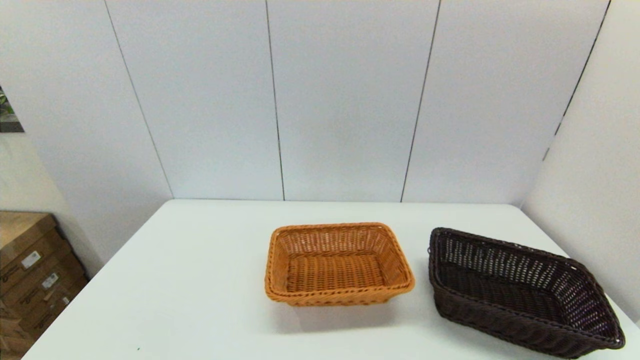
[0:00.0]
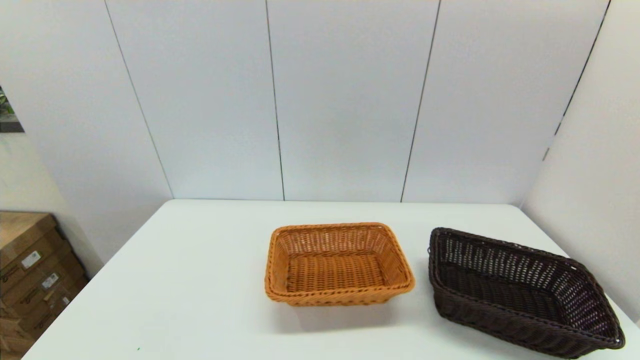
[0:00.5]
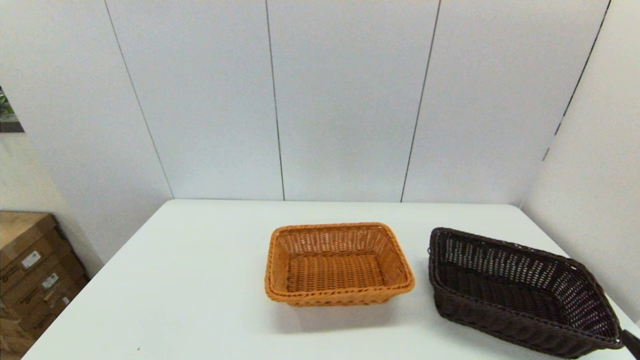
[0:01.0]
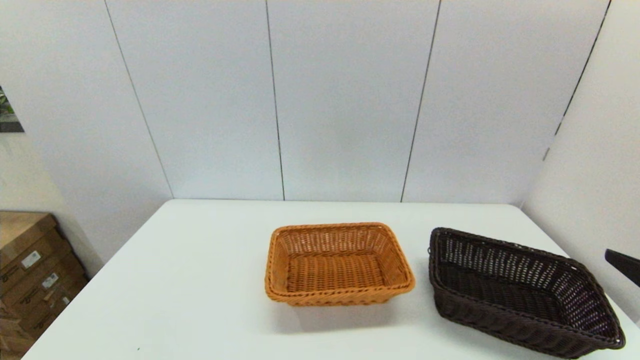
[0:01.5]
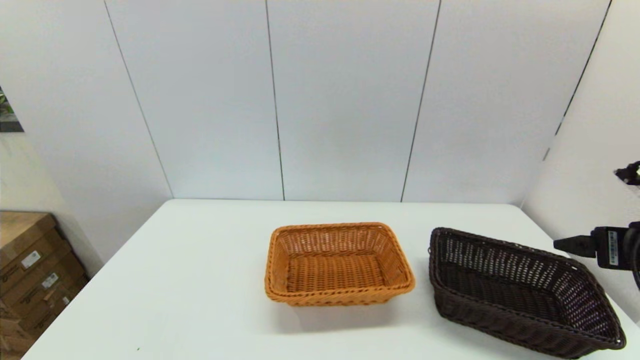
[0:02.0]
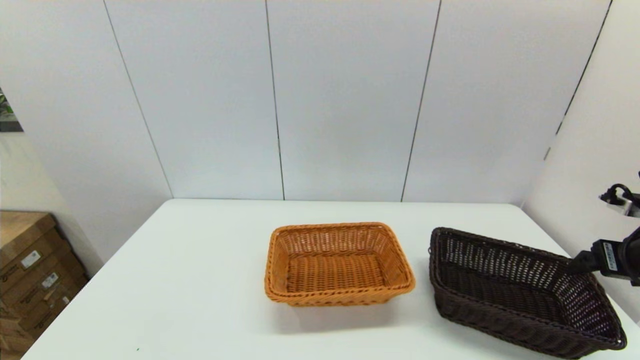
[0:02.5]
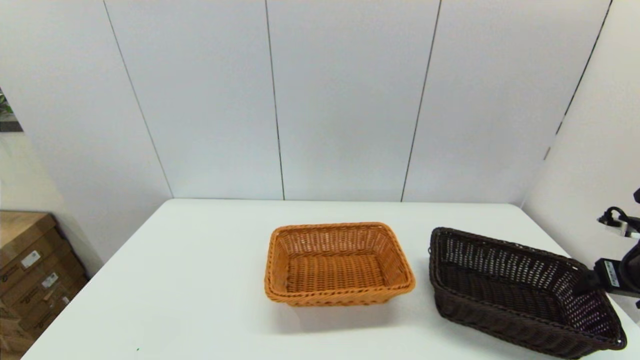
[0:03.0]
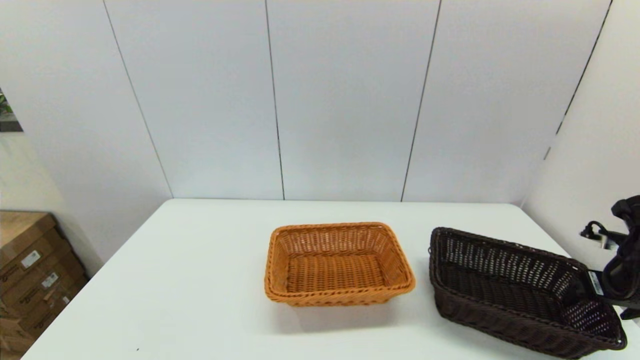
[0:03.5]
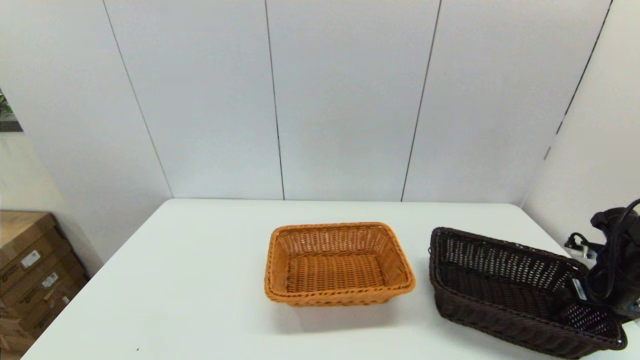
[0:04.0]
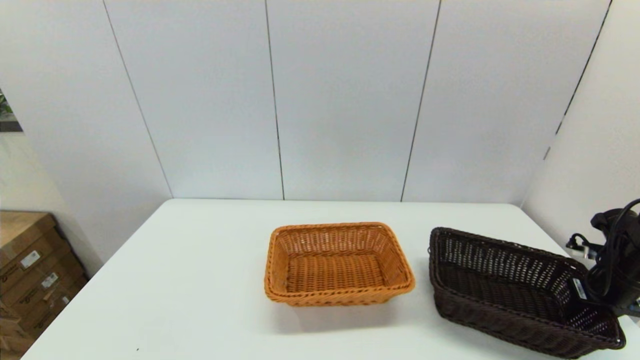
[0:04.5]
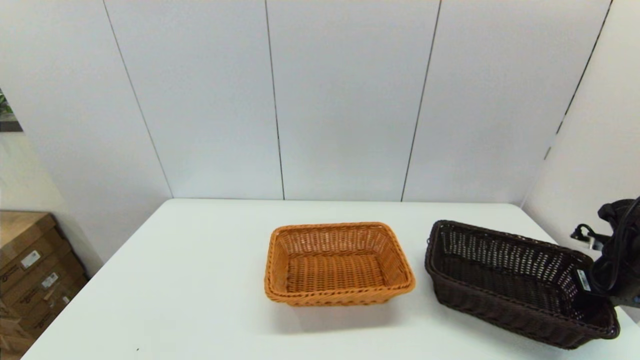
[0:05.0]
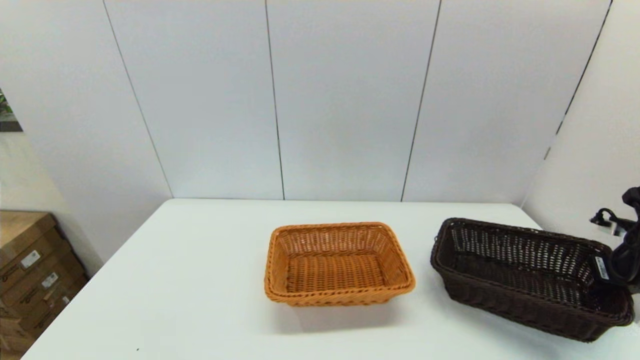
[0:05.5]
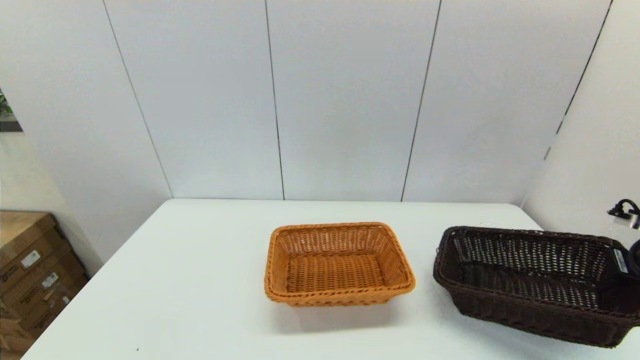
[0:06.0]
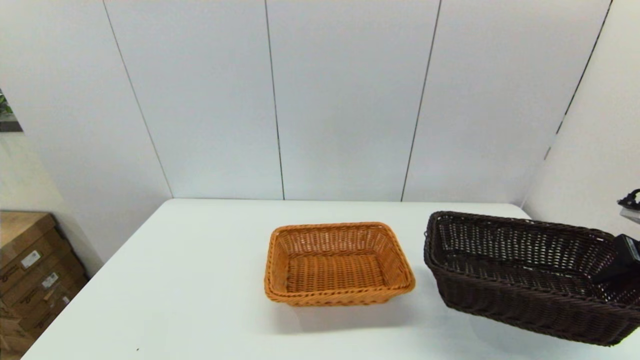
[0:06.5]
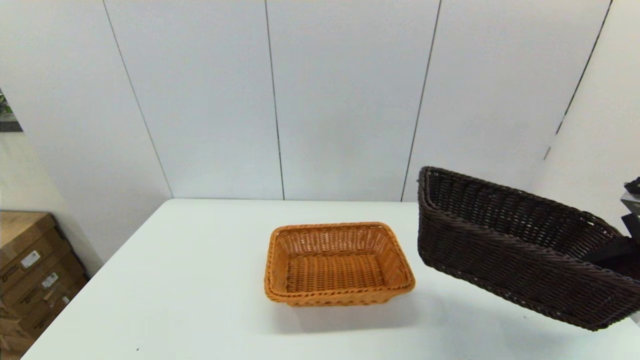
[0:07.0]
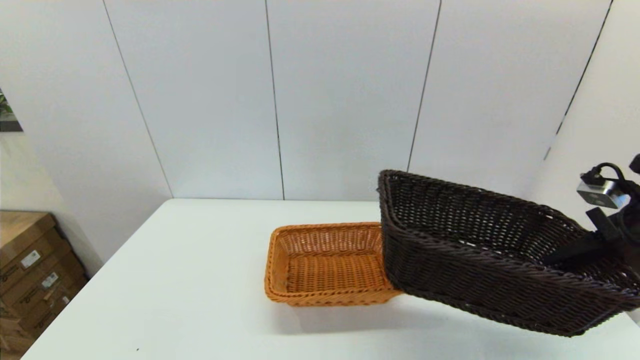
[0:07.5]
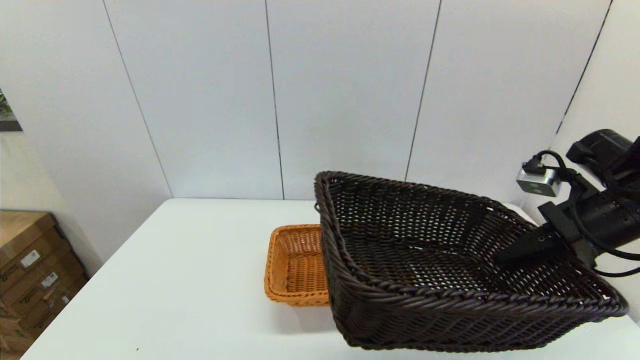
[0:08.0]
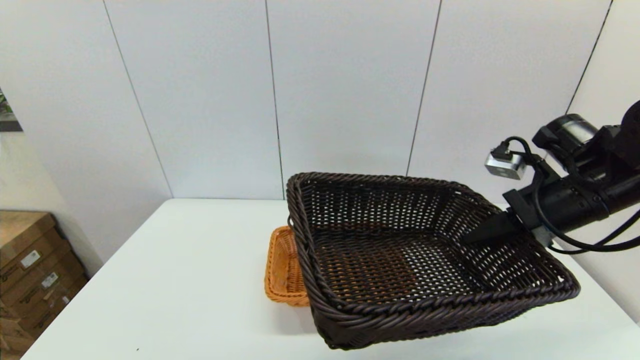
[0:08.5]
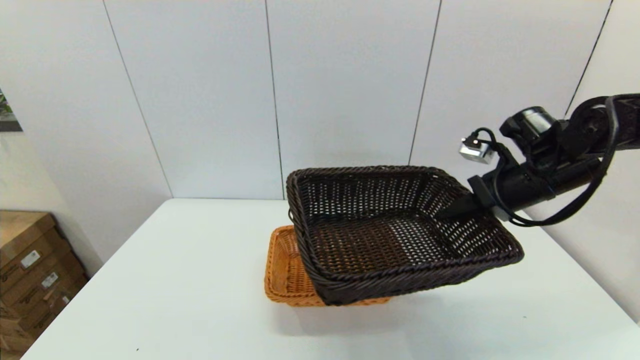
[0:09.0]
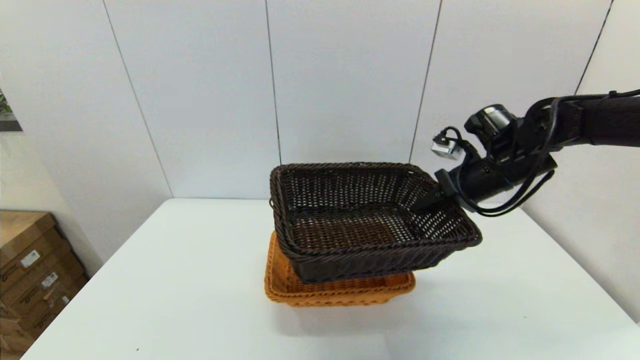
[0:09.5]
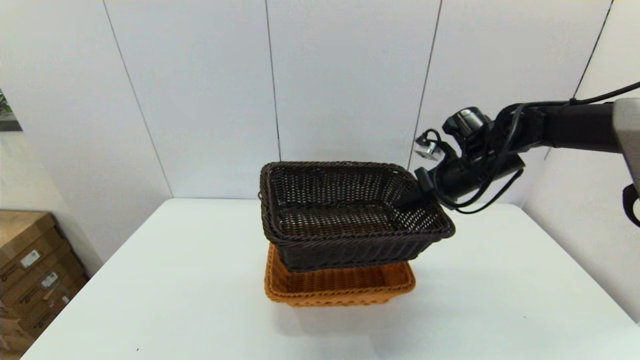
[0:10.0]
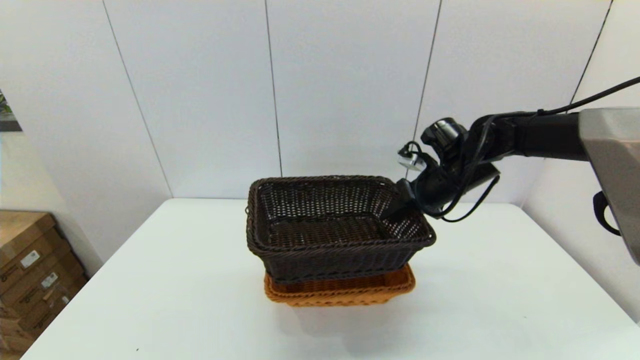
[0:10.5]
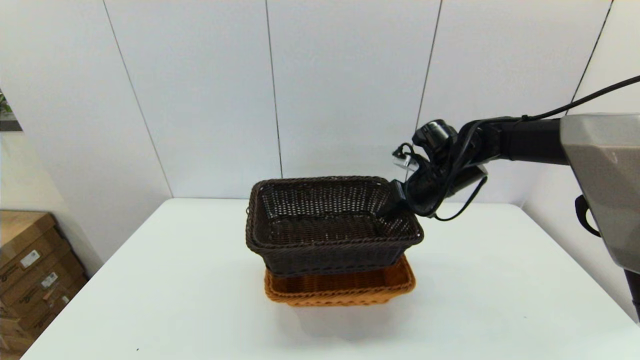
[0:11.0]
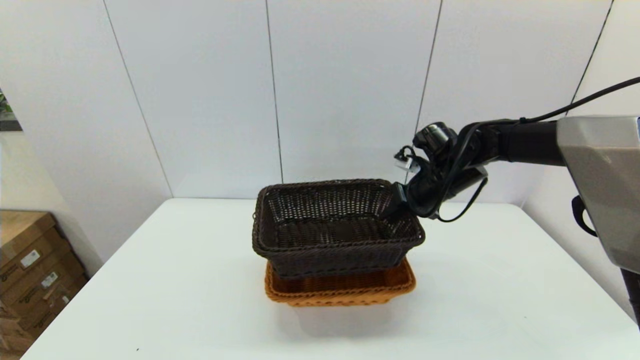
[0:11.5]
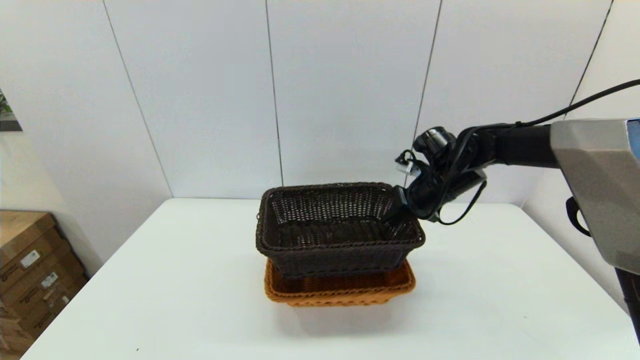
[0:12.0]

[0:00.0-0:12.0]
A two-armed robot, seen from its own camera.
Task of the whole recording: stack a basket on top of another basket.
Step, 0:00.0 to 0:04.5: Grasp the dark basket with the right gripper.
0:00.0 to 0:02.0: The right gripper travels forward and upward by roughly 25 cm.
0:02.0 to 0:04.0: The right gripper goes about 20 cm downward, to the right and forward.
0:04.0 to 0:06.0: The right gripper moves upward, approximately 10 cm, and closes its fingers.
0:06.0 to 0:08.0: The right gripper heads to the left and upward, covering some 15 cm.
0:08.0 to 0:10.0: The right gripper moves forward and to the left, about 15 cm.
0:10.0 to 0:12.0: The right gripper ends up some 5 cm from where it was.

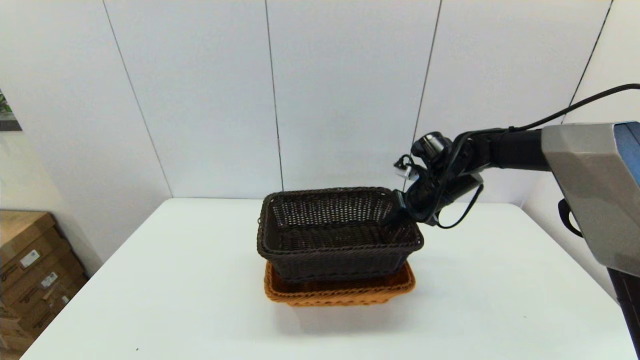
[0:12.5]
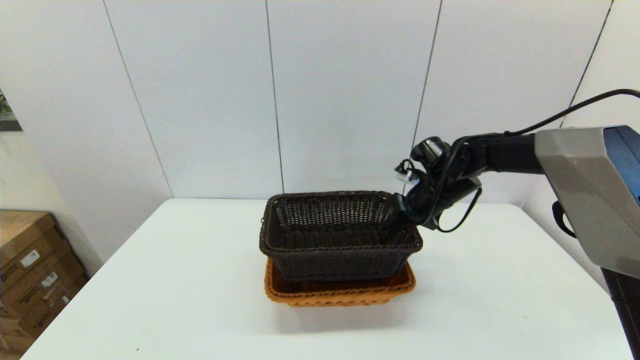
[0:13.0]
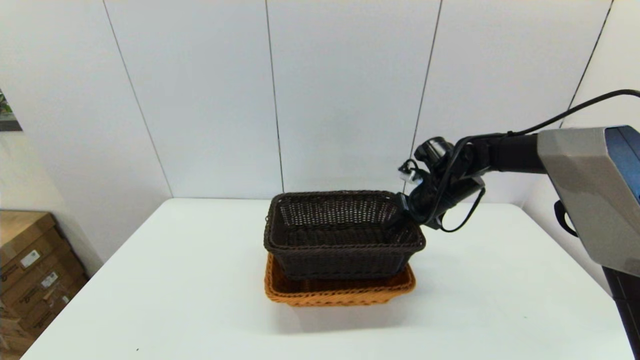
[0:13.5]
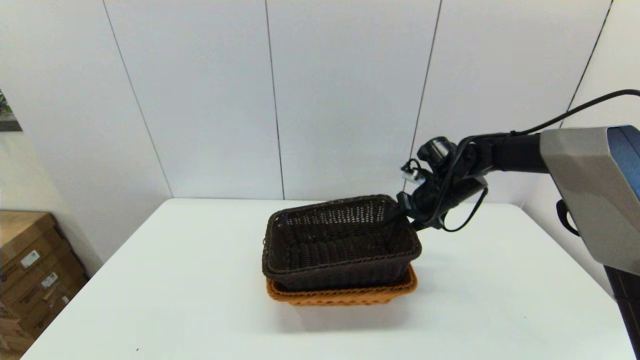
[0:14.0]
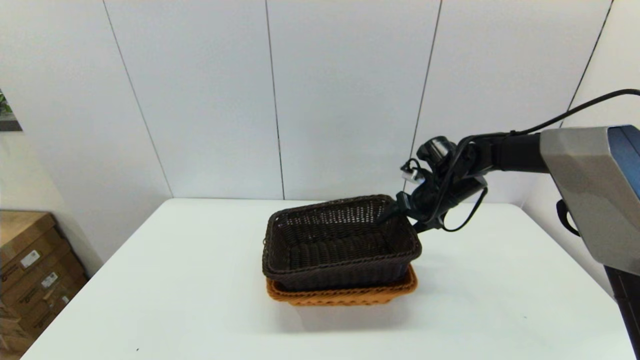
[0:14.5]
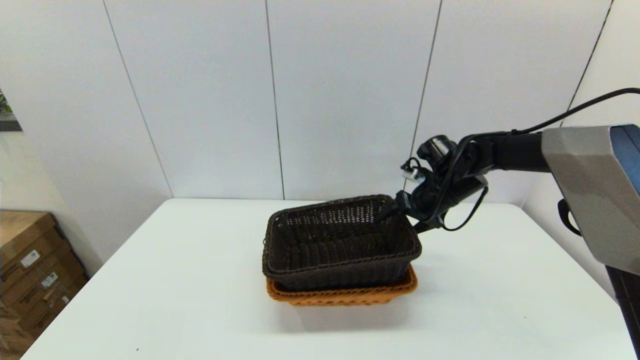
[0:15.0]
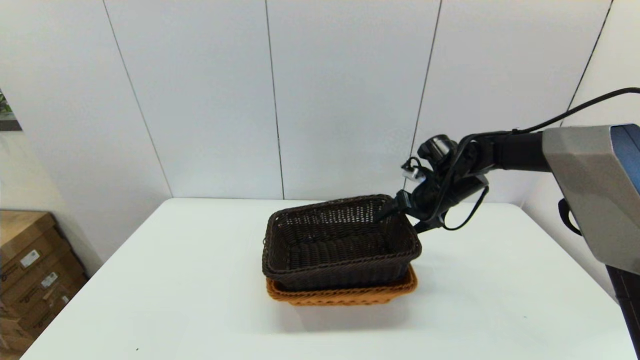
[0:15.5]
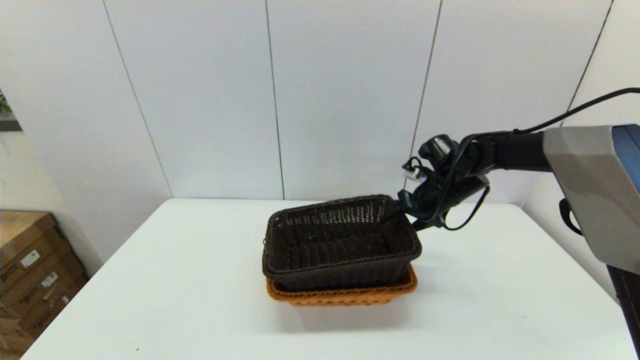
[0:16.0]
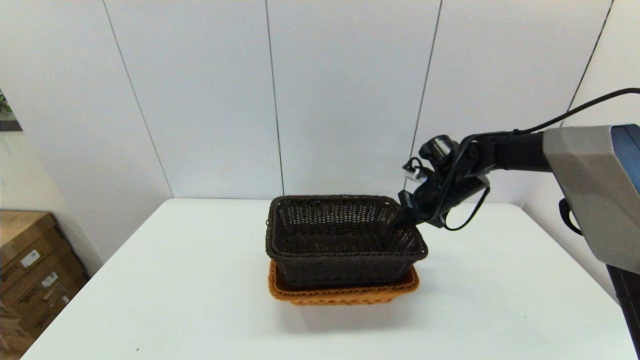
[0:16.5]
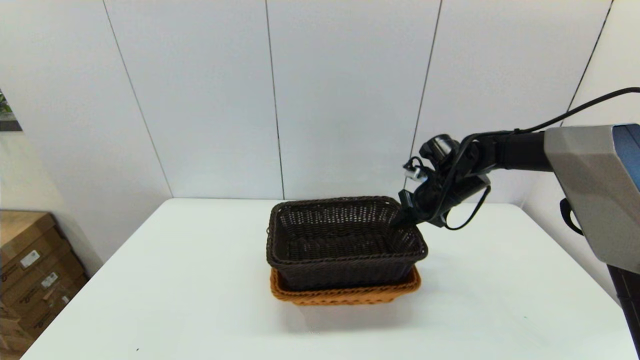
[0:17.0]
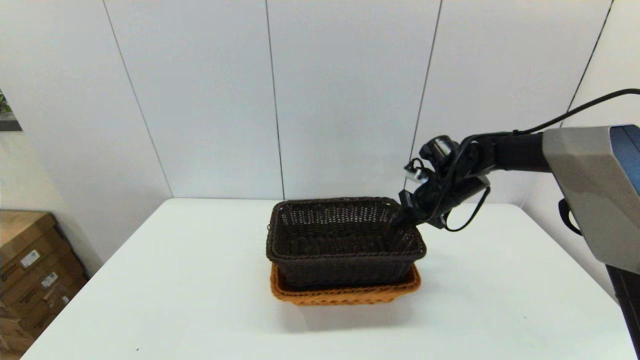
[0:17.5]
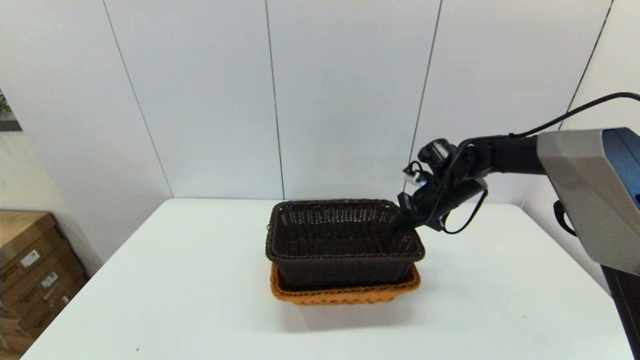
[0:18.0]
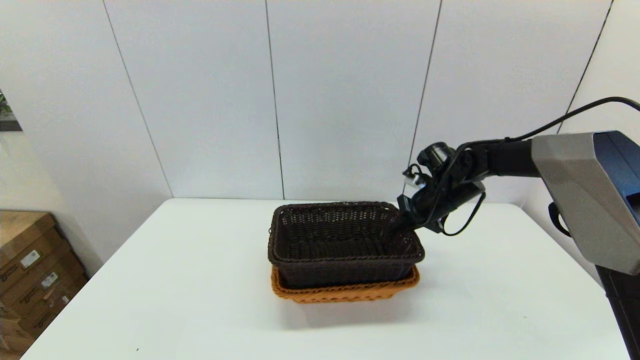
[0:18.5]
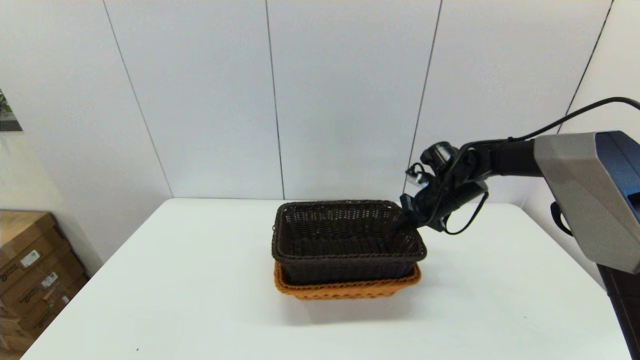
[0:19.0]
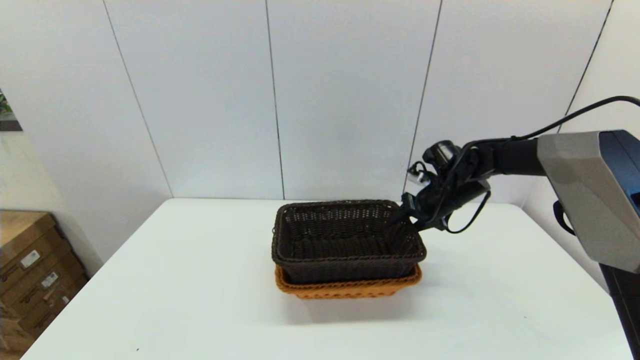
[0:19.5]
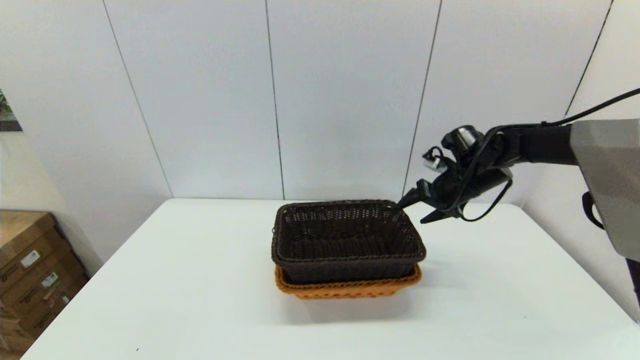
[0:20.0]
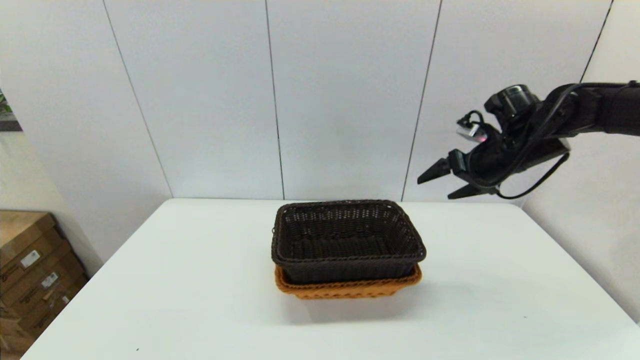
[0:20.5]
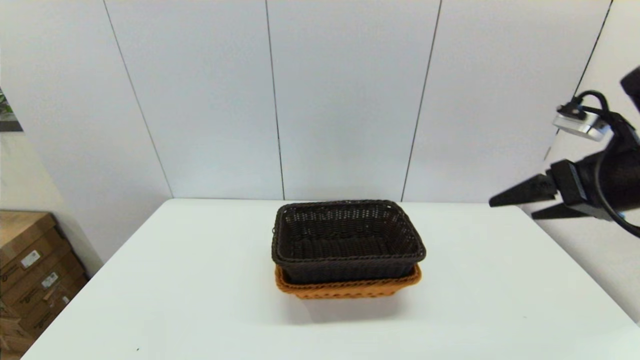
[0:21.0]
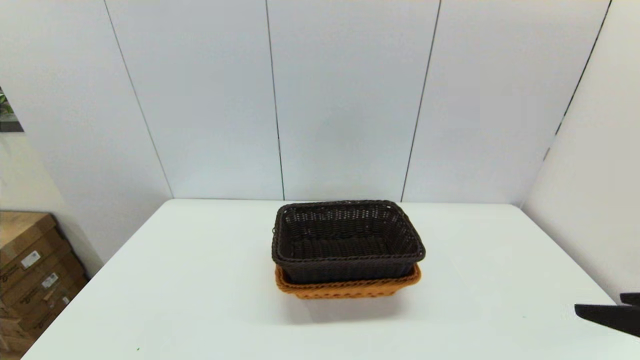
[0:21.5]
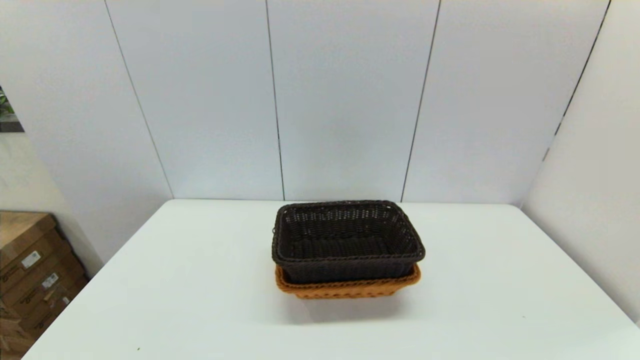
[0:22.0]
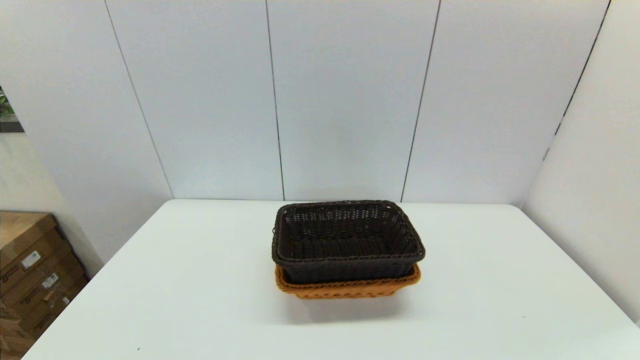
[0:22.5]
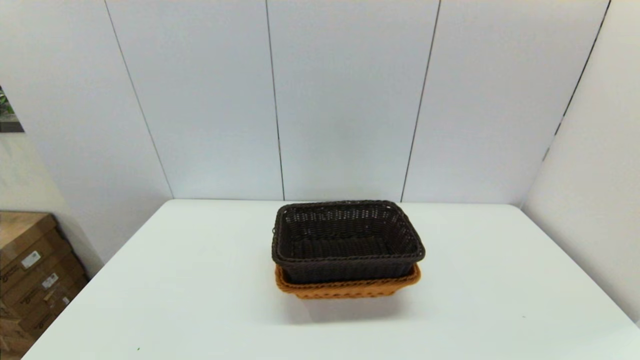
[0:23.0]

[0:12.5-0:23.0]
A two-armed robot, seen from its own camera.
Task of the whole recording: stack a basket on top of another basket.
Step, 0:12.5 to 0:19.5: Place the dark basket into the light color basket with the right gripper.
0:12.5 to 0:14.5: The right gripper opens.
0:14.5 to 0:16.5: The right gripper closes.
0:16.5 to 0:19.0: The grippers move only a little.
0:19.0 to 0:21.0: The right gripper heads backward and upward, covering approximately 30 cm, and opens up.
0:21.0 to 0:23.0: The right gripper moves backward and downward, roughly 30 cm.
